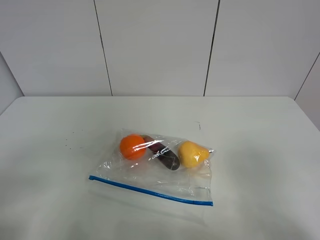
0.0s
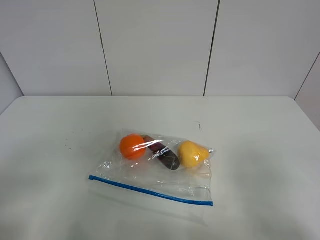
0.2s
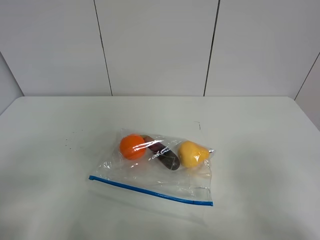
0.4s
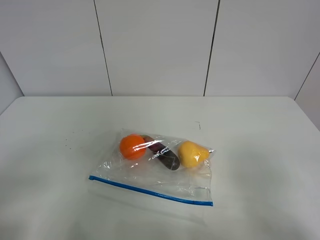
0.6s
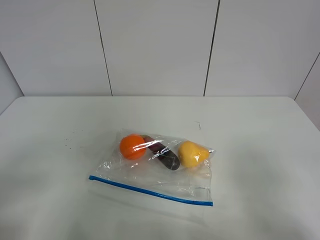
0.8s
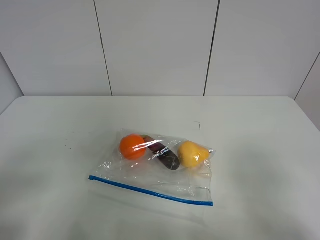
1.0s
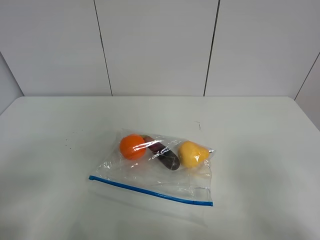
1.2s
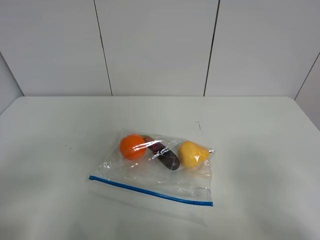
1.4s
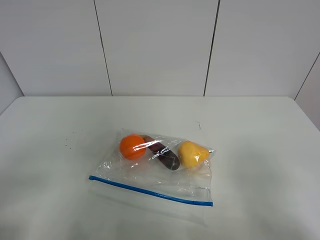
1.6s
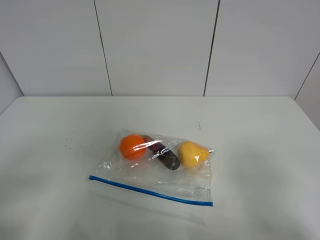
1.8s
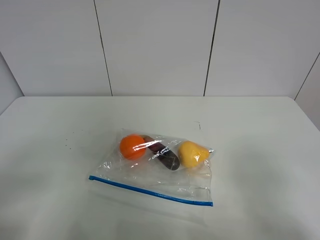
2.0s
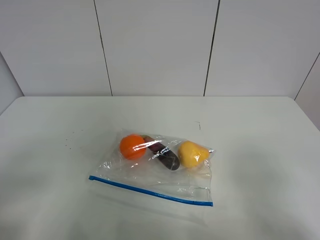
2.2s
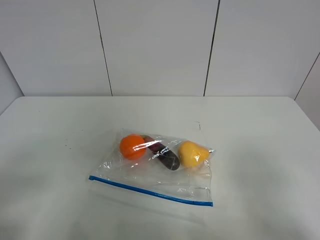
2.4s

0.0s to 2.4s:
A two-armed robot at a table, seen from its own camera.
1.2s to 2.4s: Both grippers stay put.

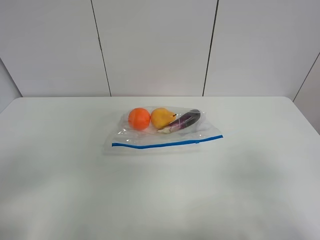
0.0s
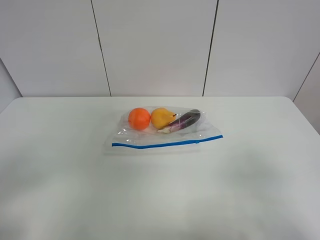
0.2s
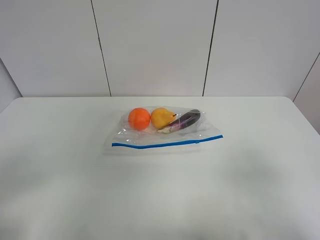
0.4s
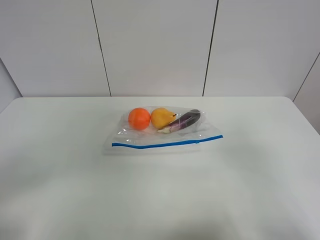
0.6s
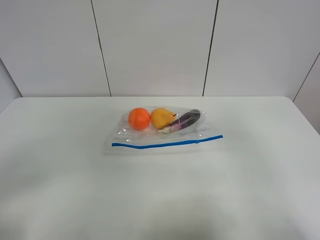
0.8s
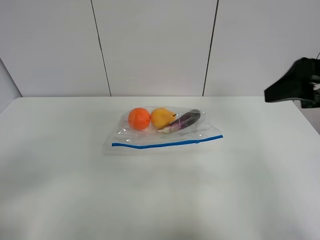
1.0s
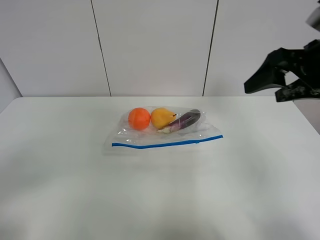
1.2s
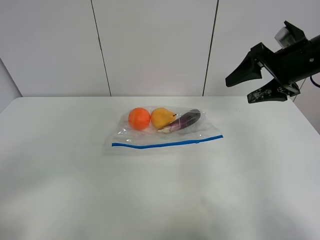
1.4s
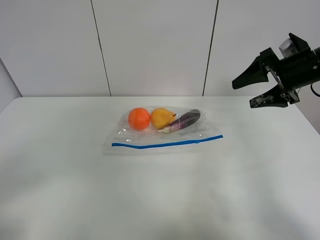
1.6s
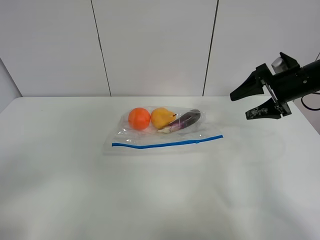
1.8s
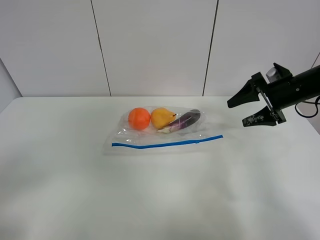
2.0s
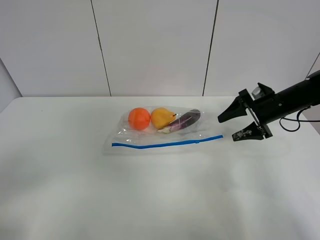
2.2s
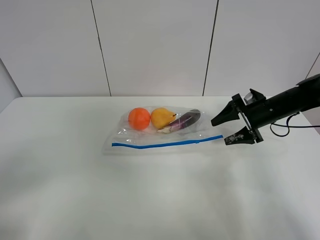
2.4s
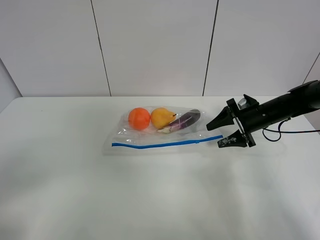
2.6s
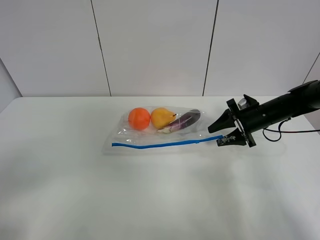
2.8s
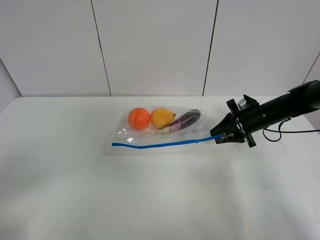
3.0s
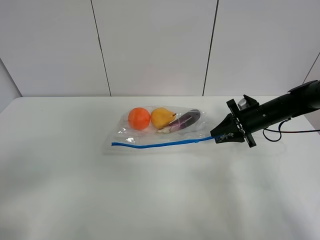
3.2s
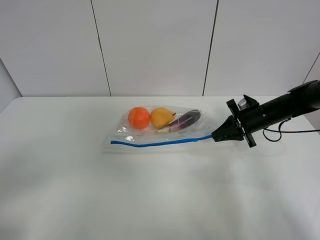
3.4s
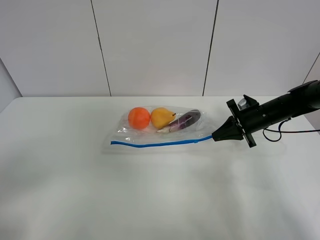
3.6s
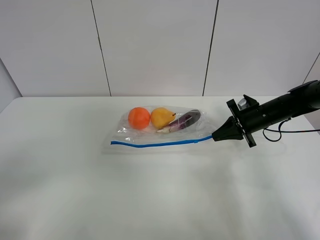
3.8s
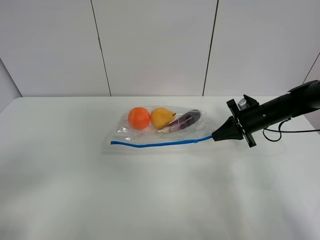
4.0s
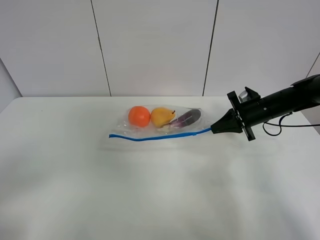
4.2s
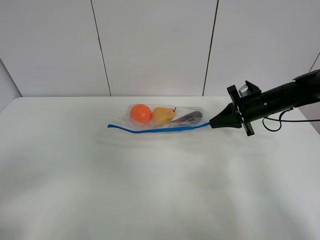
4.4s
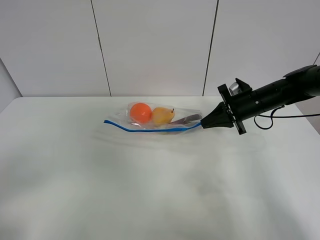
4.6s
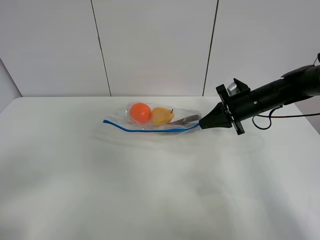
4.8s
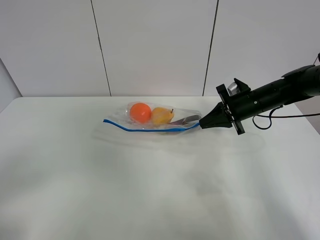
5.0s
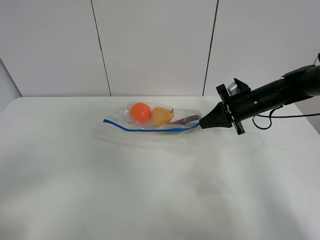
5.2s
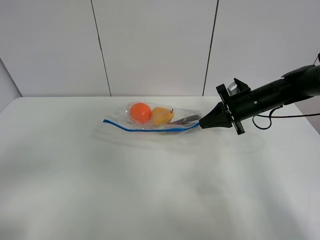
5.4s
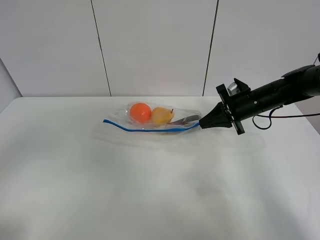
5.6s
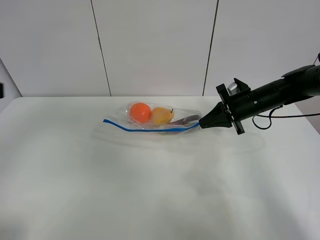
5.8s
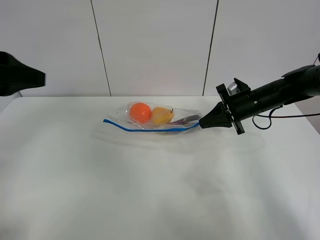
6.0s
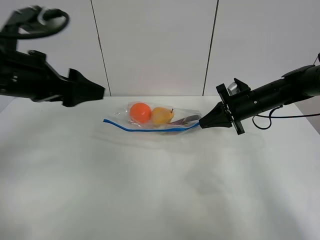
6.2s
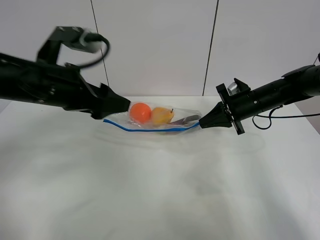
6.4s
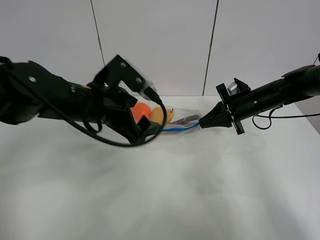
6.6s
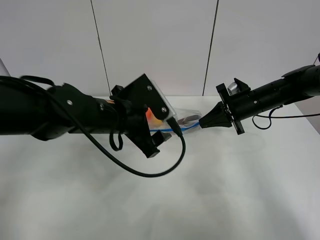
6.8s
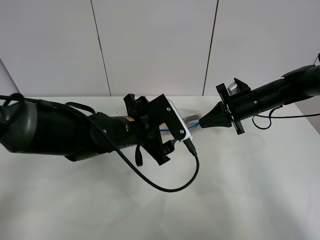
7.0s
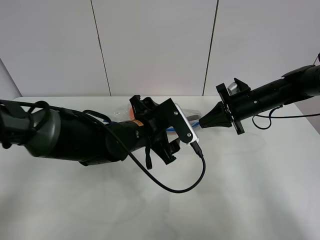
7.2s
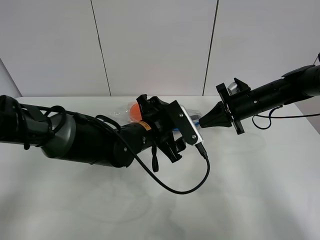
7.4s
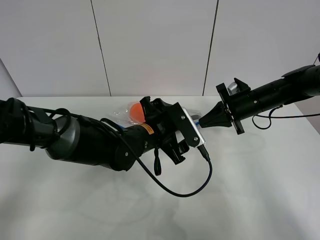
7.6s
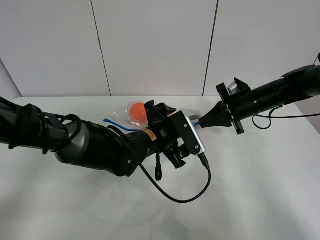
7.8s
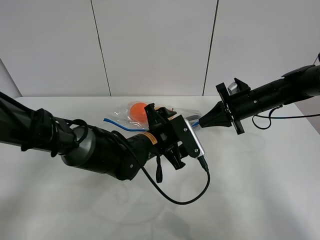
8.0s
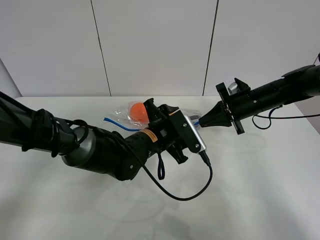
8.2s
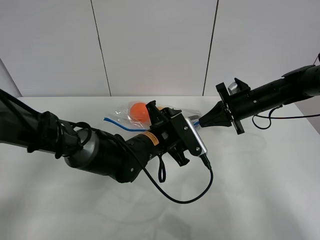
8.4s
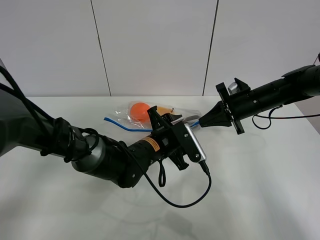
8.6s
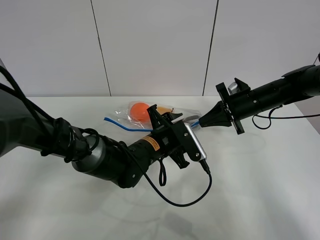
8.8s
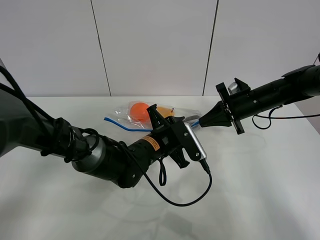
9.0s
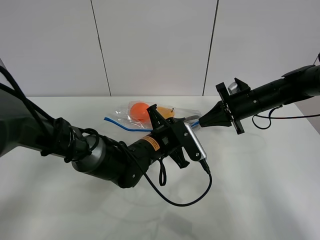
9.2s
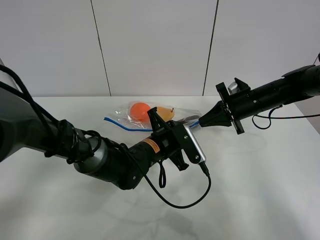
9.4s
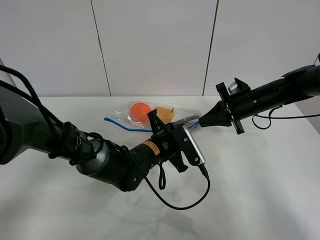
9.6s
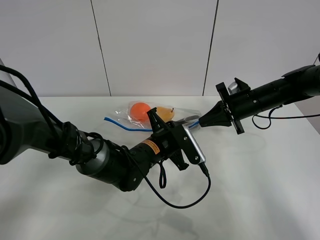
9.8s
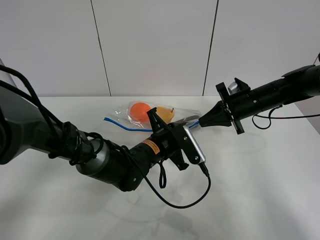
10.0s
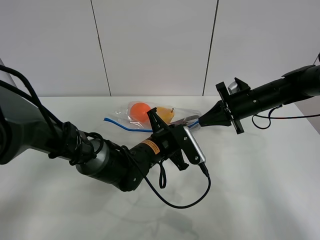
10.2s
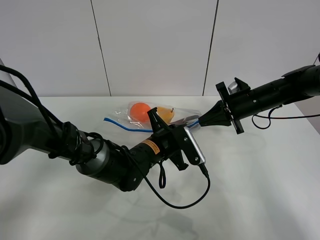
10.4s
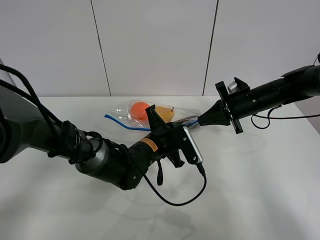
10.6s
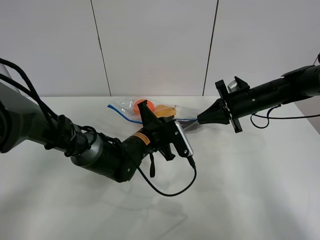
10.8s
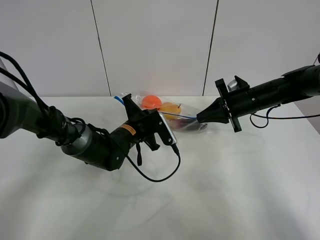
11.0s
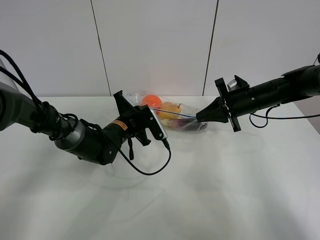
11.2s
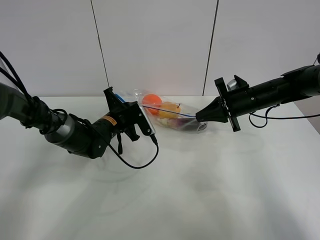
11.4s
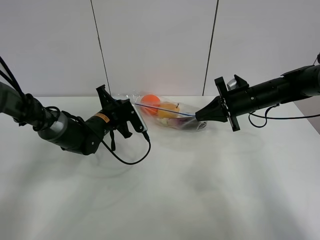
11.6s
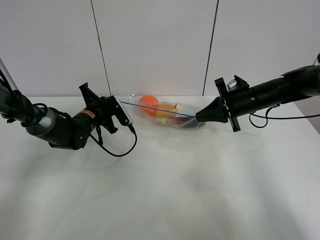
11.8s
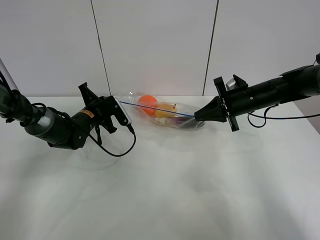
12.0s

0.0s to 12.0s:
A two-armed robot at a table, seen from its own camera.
Step, 0.0s to 3.6s: Grasp the fruit bag with right gripper.
Step, 3.8s to 4.8s: Lift the fruit bag with your right gripper.
0.0s to 1.6s: The right gripper shifts approximately 35 cm forward.
1.6s to 3.0s: The right gripper moves downward, roughly 15 cm, and closes its fingers.
3.0s to 4.4s: The right gripper closes up.
4.4s to 6.0s: The left gripper travels forward by some 20 cm.
6.0s to 7.6s: The left gripper heads to the right and downward, covering about 30 cm.
7.6s to 9.0s: The left gripper closes its fingers.
9.0s to 10.4s: The left gripper closes.
10.4s to 12.0s: The left gripper goes about 20 cm to the left and forward.

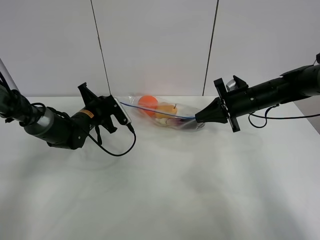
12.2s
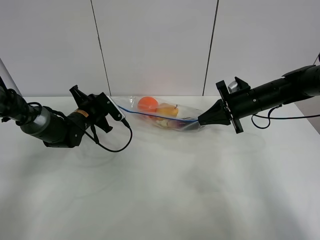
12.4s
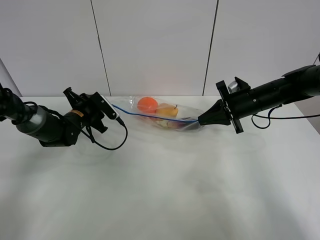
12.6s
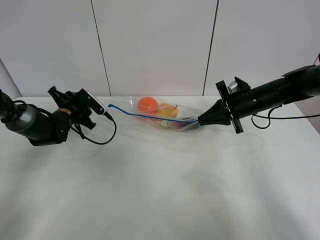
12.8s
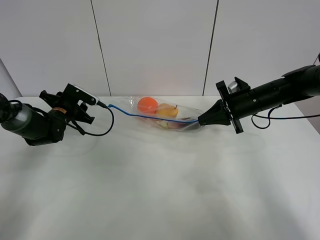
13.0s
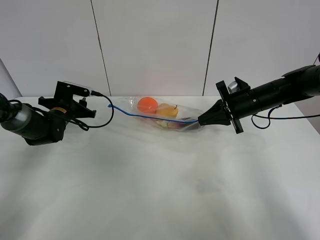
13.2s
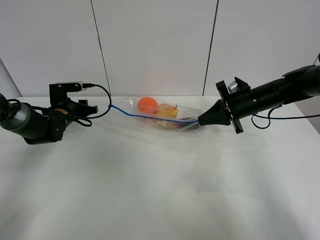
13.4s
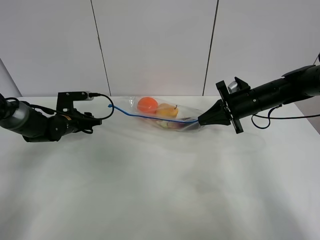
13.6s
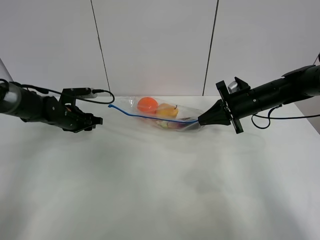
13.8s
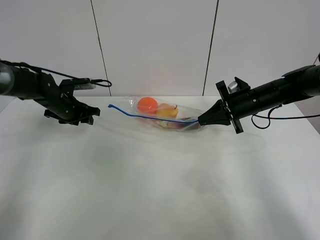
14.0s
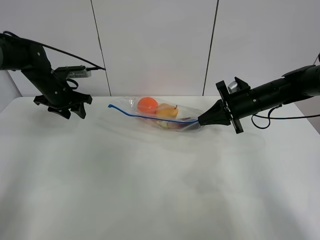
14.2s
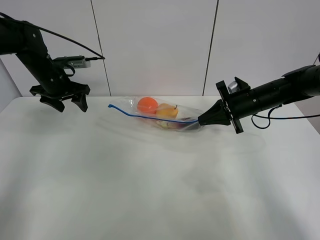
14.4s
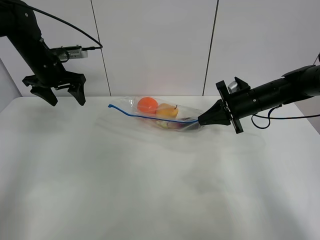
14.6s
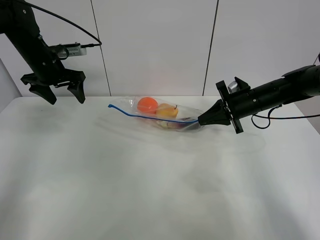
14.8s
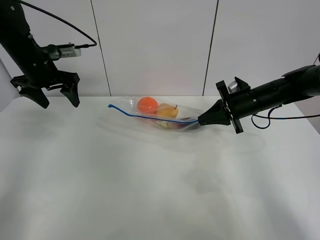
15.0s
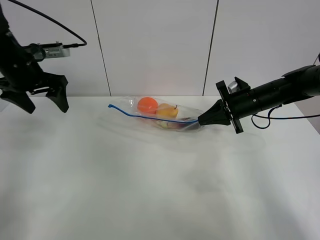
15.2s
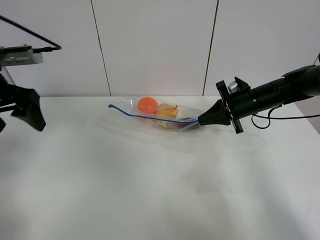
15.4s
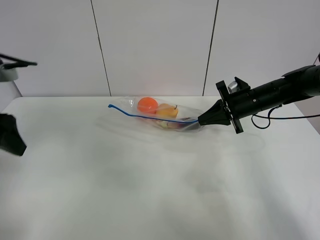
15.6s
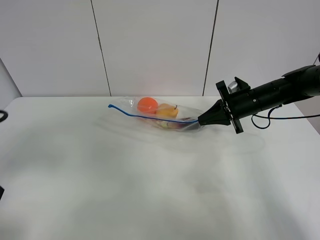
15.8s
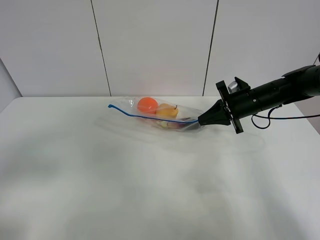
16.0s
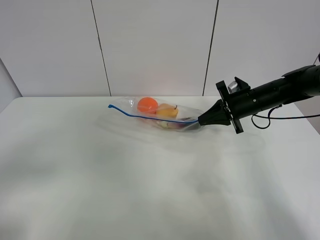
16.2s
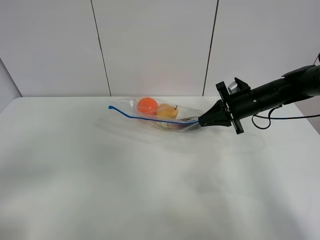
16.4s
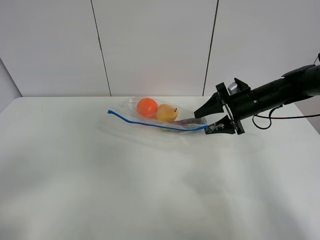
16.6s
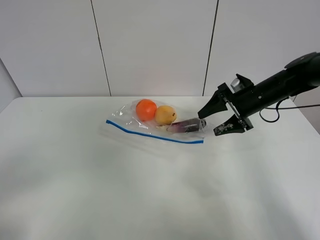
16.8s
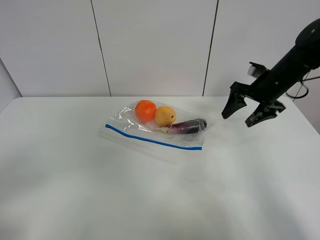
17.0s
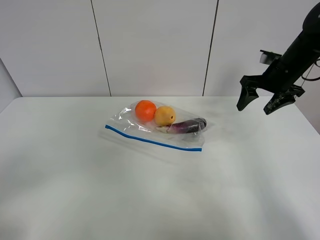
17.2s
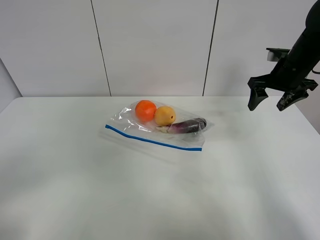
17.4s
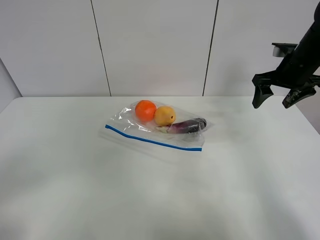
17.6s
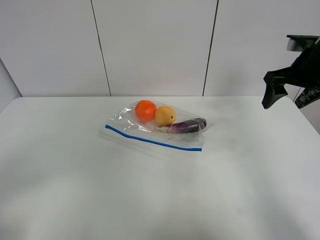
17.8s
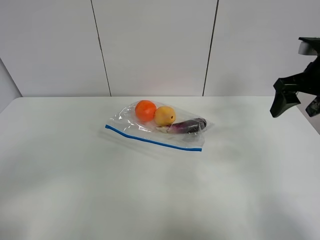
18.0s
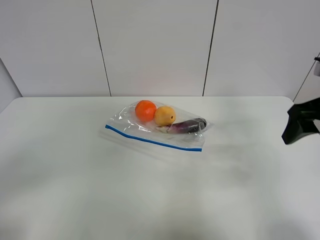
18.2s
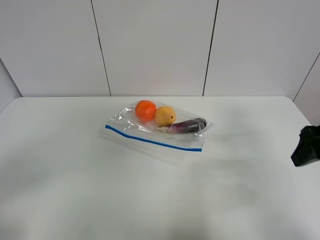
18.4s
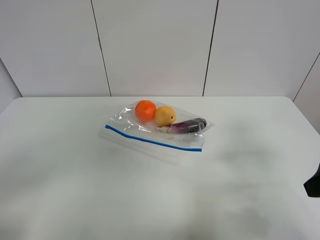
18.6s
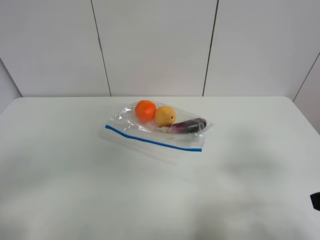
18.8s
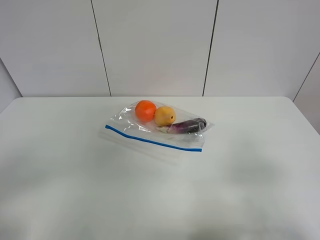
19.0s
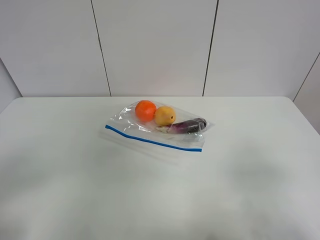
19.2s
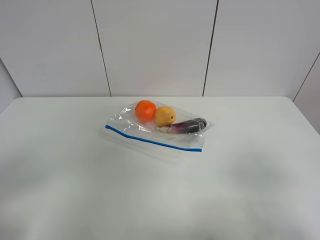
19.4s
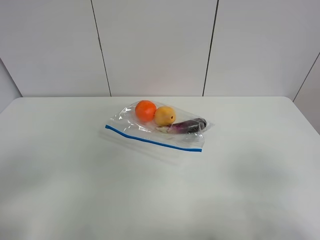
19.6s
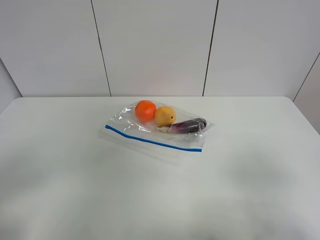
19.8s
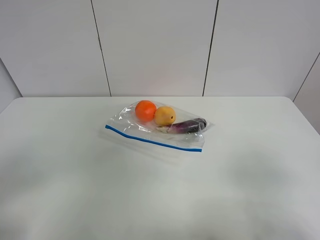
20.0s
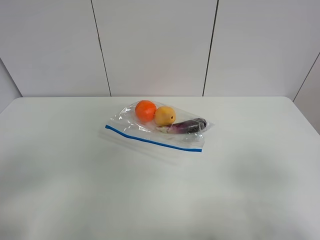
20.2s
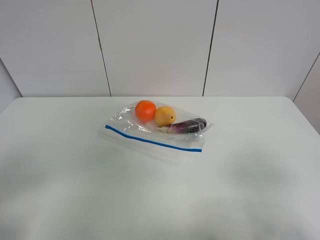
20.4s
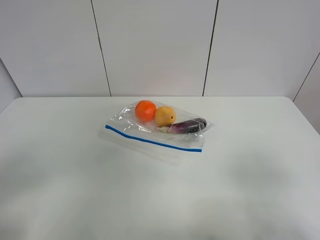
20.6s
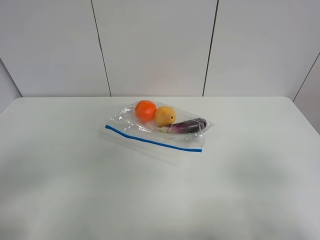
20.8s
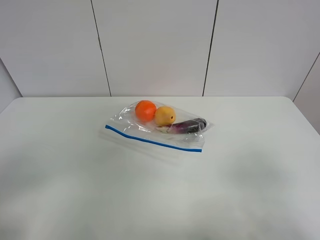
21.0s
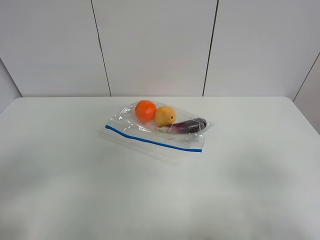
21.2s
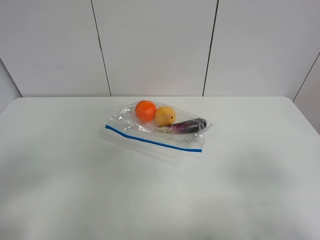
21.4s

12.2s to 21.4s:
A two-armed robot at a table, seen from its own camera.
12.2s to 13.8s: The left gripper heads to the left, covering approximately 5 cm, and opens up.
13.8s to 15.2s: The left gripper is displaced upward by approximately 20 cm, and opens its fingers.
15.2s to 16.8s: The left gripper moves backward, some 35 cm. The right gripper opens.
16.8s to 18.4s: The right gripper heads backward and upward, covering some 20 cm.
18.4s to 19.8s: The right gripper shifts some 20 cm backward.
19.8s to 21.4s: Both grippers stay about where they are.
